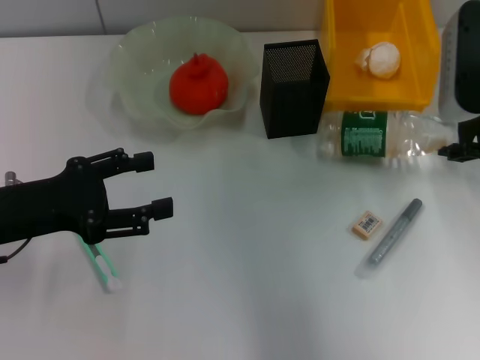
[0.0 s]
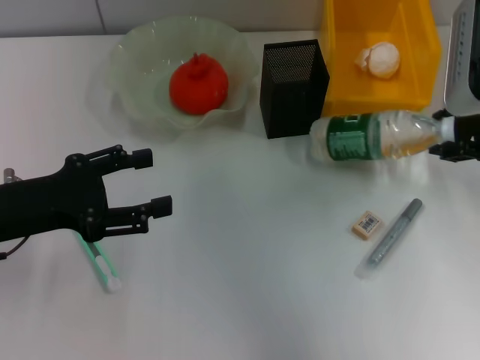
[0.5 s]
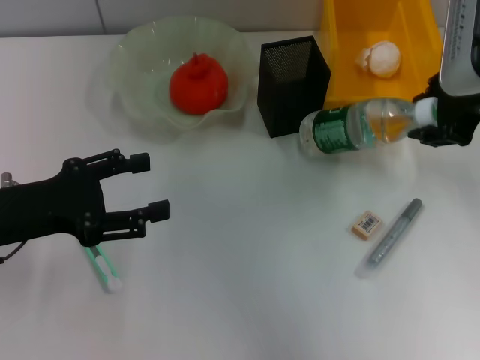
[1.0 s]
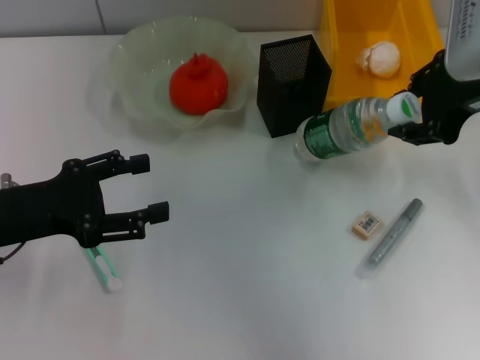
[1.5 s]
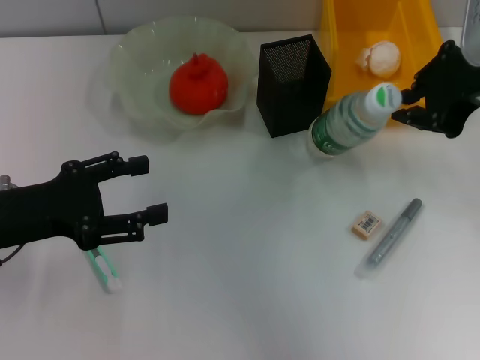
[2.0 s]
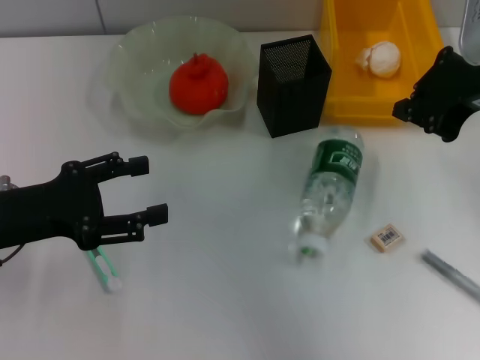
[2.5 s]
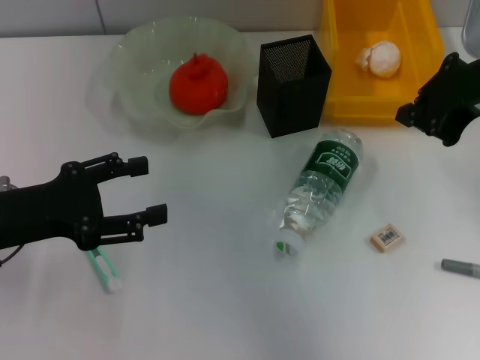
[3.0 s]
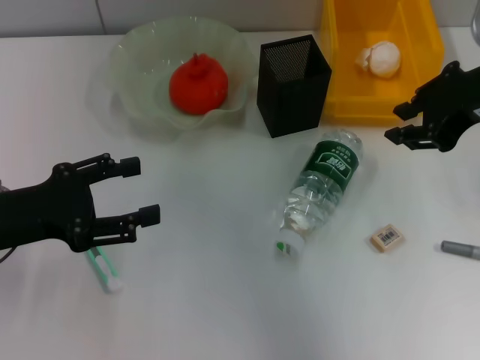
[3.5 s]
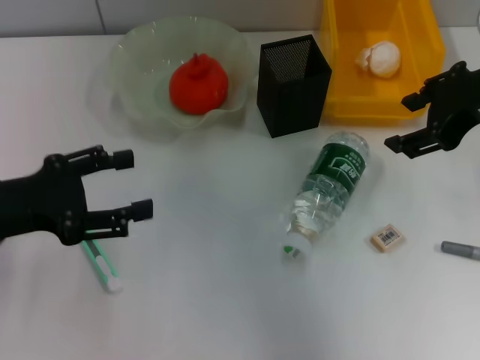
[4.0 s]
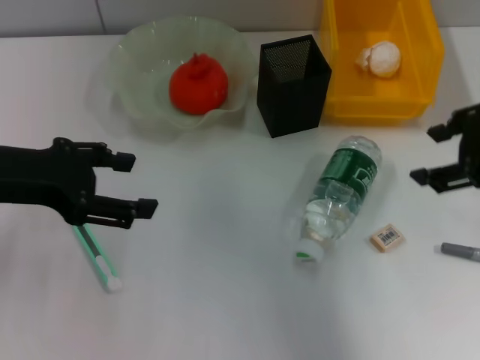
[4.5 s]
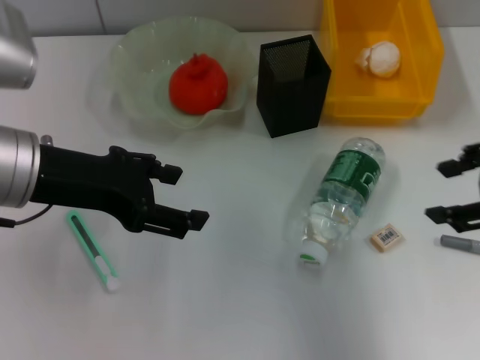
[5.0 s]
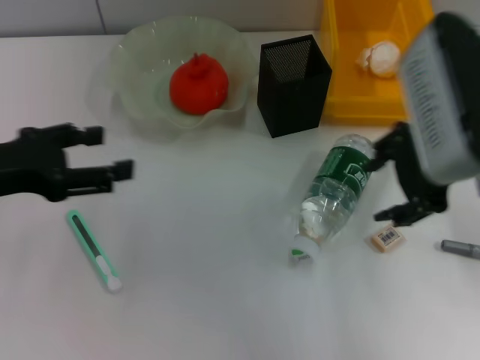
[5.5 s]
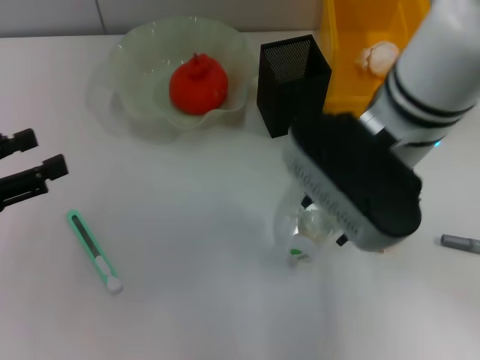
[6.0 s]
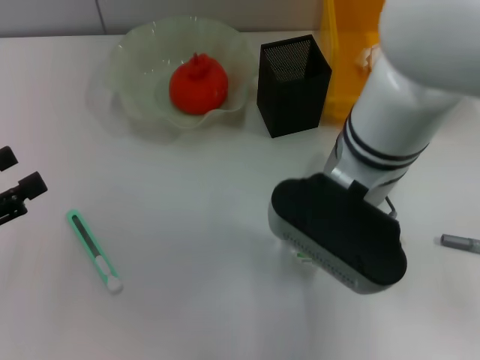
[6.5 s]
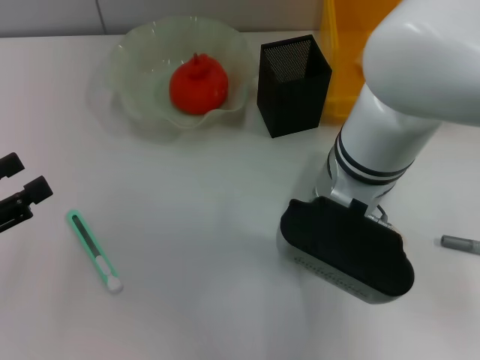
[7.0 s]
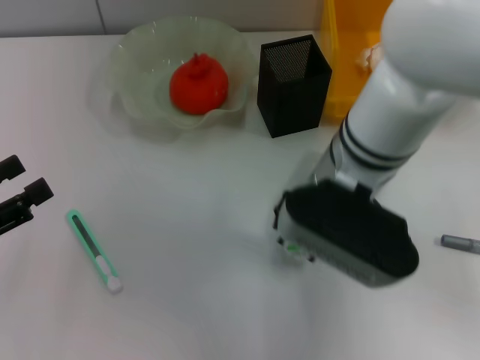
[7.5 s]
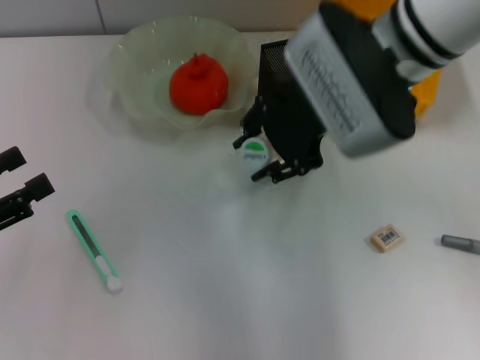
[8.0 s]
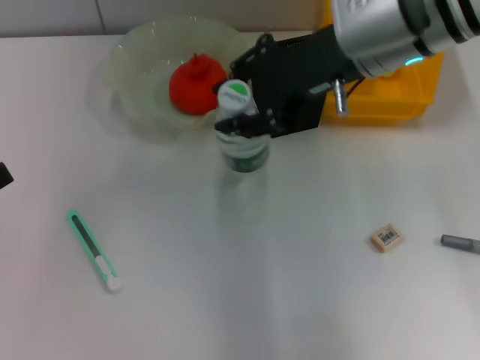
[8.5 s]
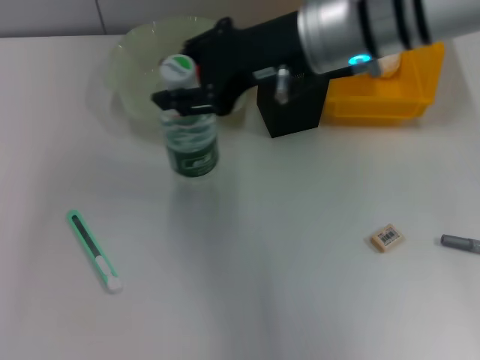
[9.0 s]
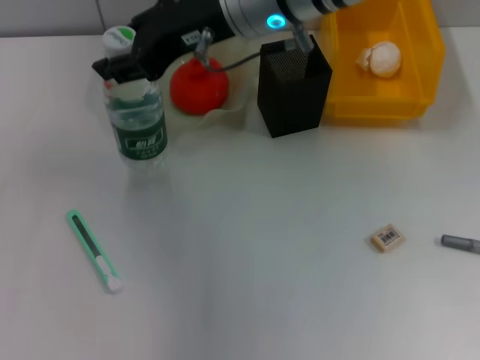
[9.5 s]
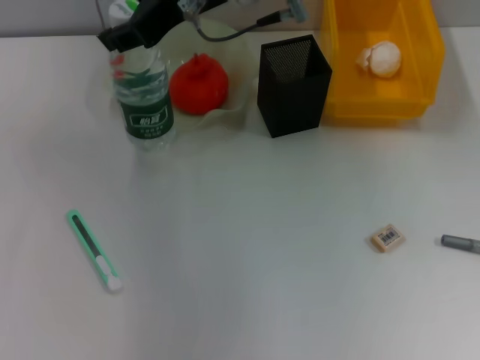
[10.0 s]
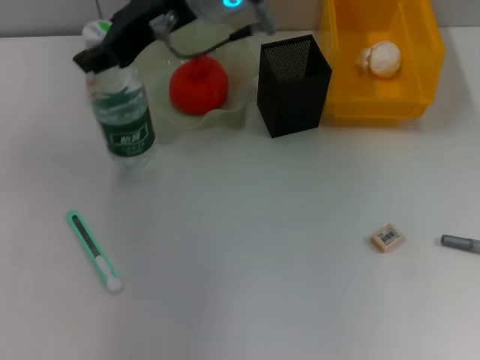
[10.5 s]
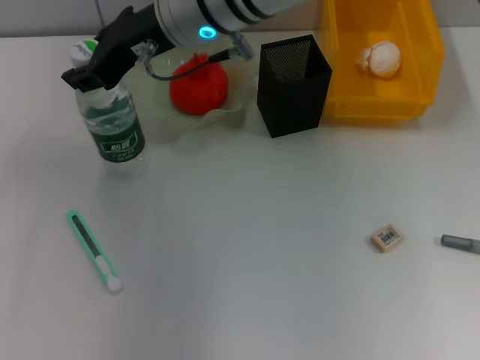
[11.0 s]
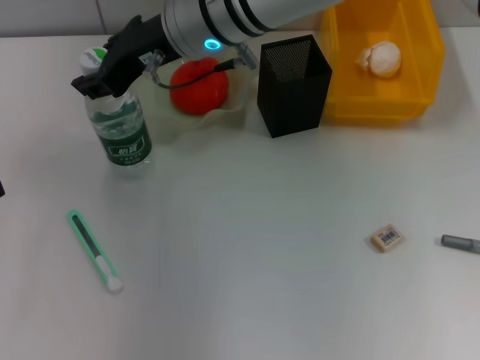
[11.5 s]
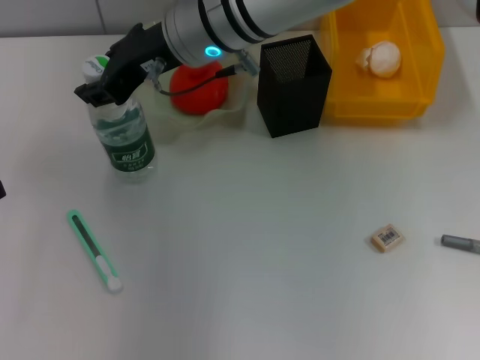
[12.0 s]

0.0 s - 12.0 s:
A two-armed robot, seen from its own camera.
Step, 0.0 s - 6.5 s: Grab the water bottle with the left hand.
0.0 s - 2.0 s: The right gripper goes approximately 5 cm upward.
2.0 s - 4.0 s: The right gripper opens its fingers.
4.0 s - 6.0 s: The right gripper moves to the left, some 15 cm. Meanwhile the left gripper heads to the left, covering some 5 cm.
6.0 s - 8.0 s: The right gripper ends up roughly 5 cm from where it was.
8.0 s - 10.0 s: The right gripper moves to the left and forward, some 10 cm; the left gripper is displaced to the left by some 5 cm.
10.0 s - 12.0 s: The right gripper shifts by roughly 5 cm.

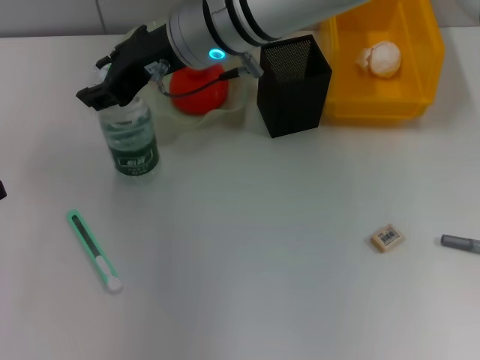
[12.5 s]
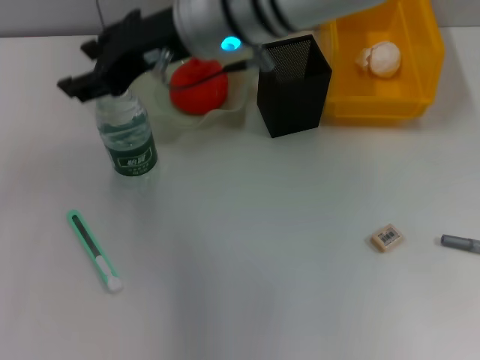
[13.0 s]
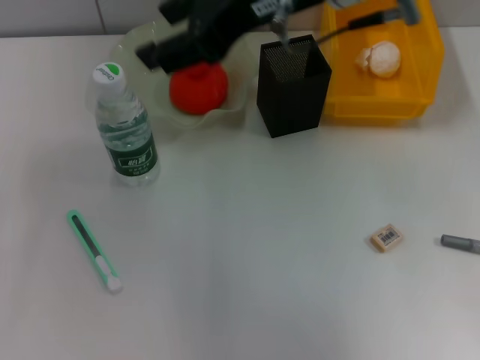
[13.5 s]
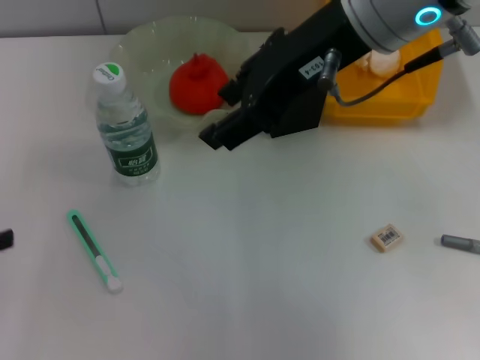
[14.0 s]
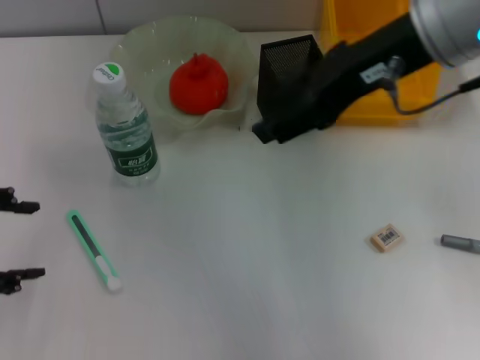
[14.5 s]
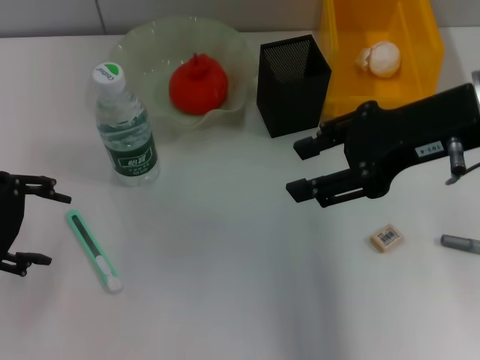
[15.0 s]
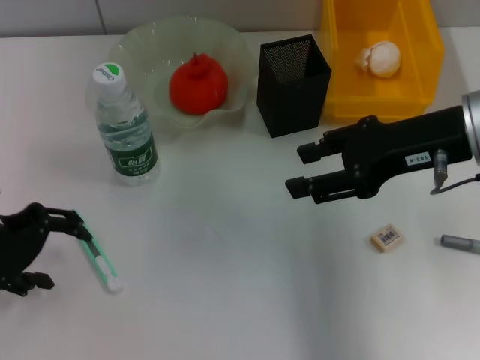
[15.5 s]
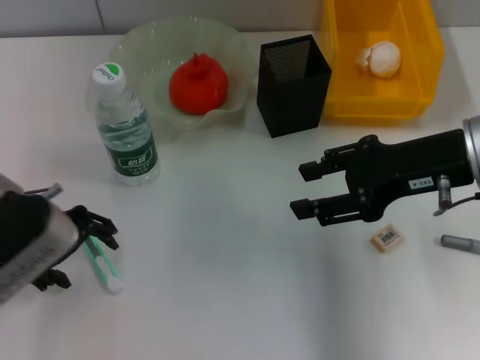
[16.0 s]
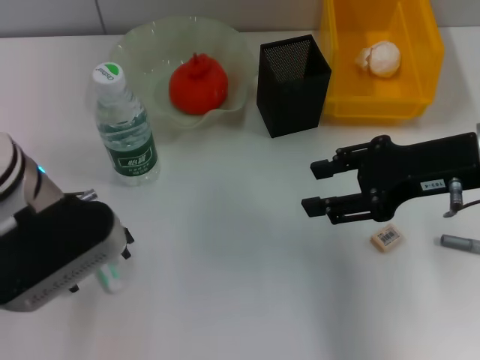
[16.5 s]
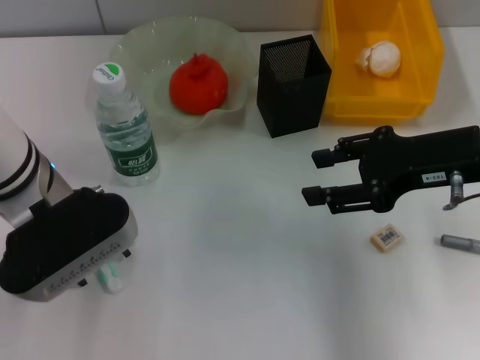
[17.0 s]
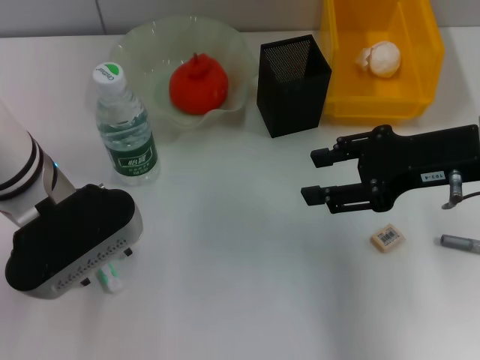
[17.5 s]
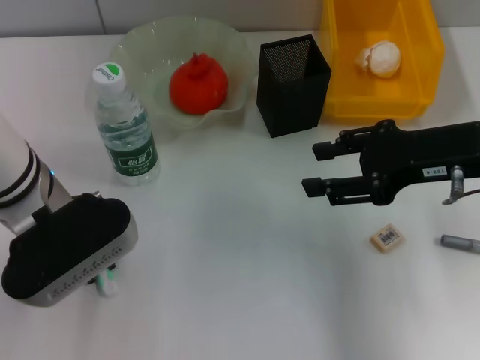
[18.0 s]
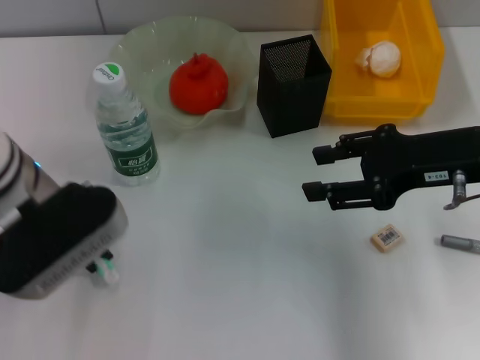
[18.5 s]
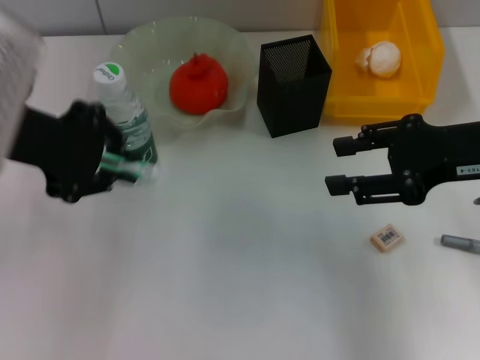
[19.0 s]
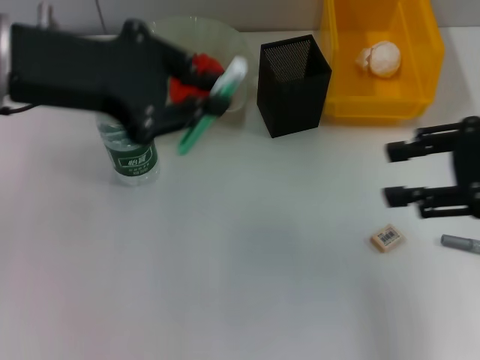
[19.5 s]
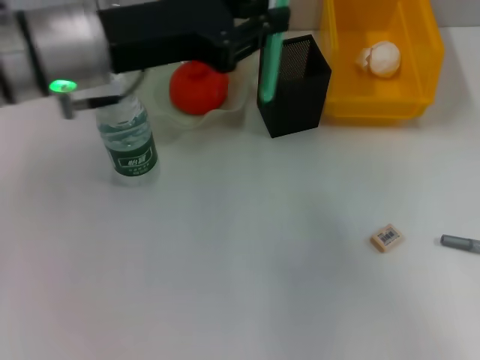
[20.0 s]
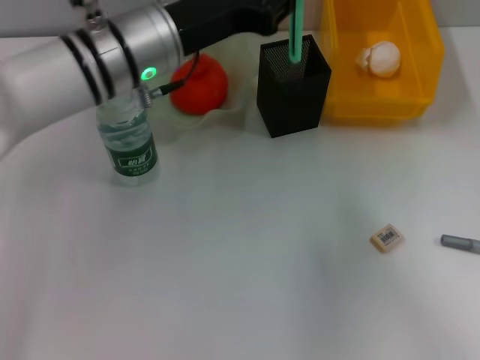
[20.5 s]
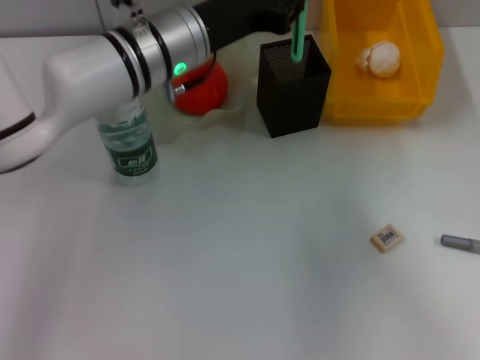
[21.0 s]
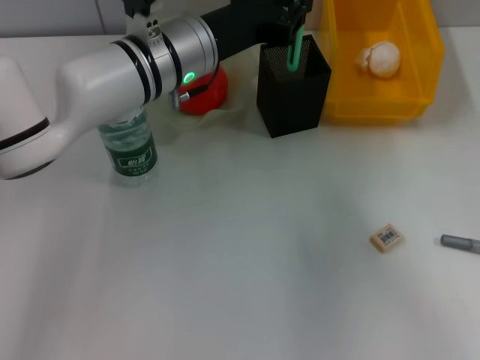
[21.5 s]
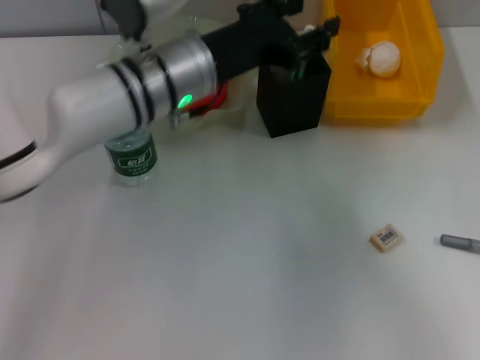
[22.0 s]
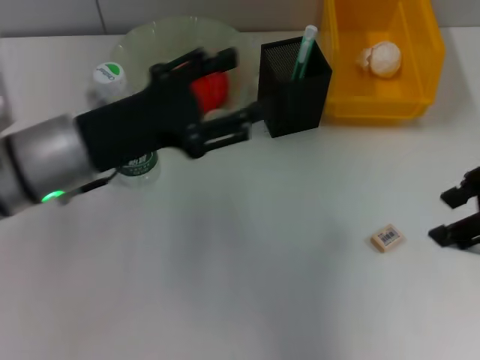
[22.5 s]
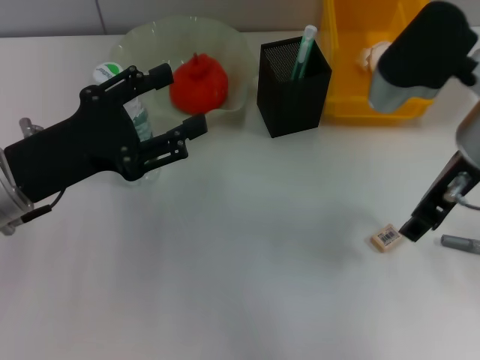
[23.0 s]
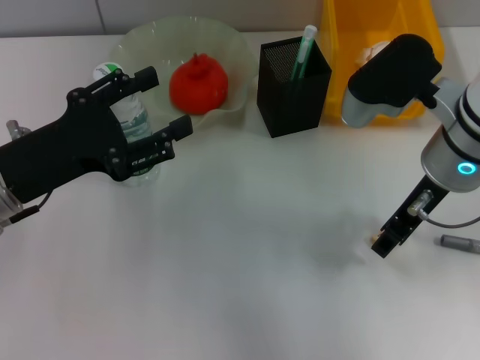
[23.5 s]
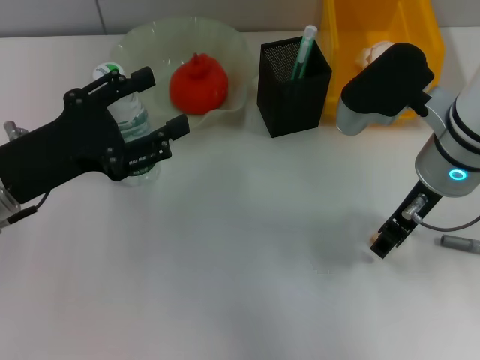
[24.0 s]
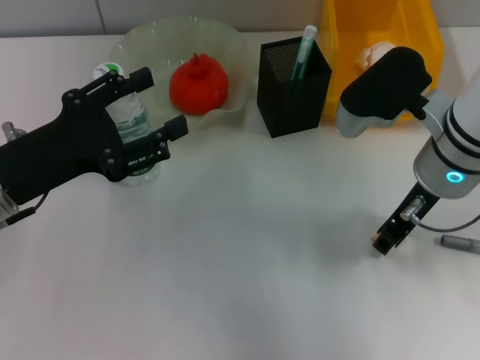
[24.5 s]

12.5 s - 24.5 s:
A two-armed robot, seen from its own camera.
Step, 14.0 s - 18.0 s: Grab the blue utility knife with the left hand.
Step, 18.5 s - 22.0 s: Place the blue utility knife into the pen holder with the left hand.
12.5 s - 14.5 s: The left gripper is displaced upward by approximately 5 cm, while the right gripper moves to the right, upward and backward, some 20 cm.
14.5 s - 16.5 s: The right gripper shifts about 15 cm downward and to the right; the left gripper goes approximately 15 cm to the right and forward.
16.5 s - 18.5 s: The left gripper closes.
18.5 s - 20.5 s: The left gripper travels forward and to the right by some 10 cm, and moves about 10 cm upward and comes back. The right gripper goes some 20 cm to the right, backward and upward.
20.5 s - 22.5 s: The left gripper moves backward and to the left, approximately 10 cm, and opens its fingers. The right gripper shifts about 15 cm to the left and forward.
22.5 s - 24.5 s: The left gripper shifts roughly 5 cm to the left, while the right gripper shifts about 15 cm to the left and downward.

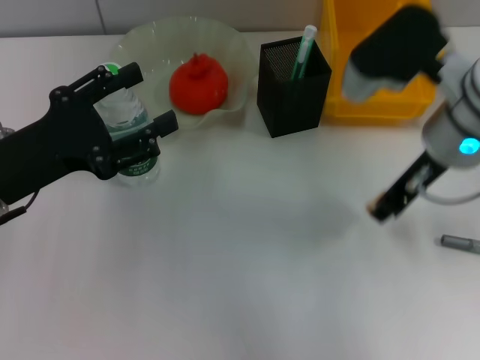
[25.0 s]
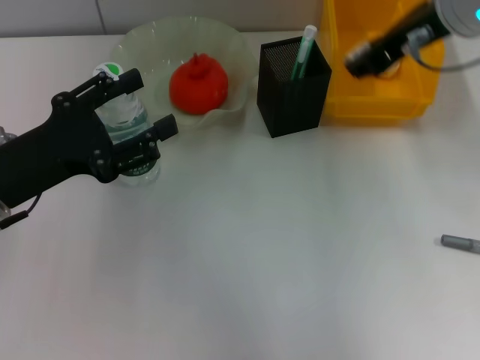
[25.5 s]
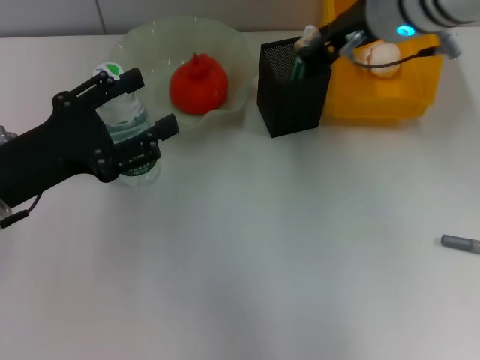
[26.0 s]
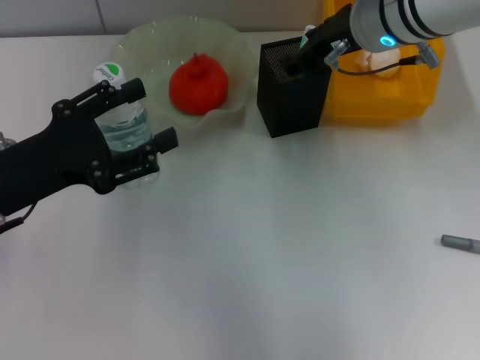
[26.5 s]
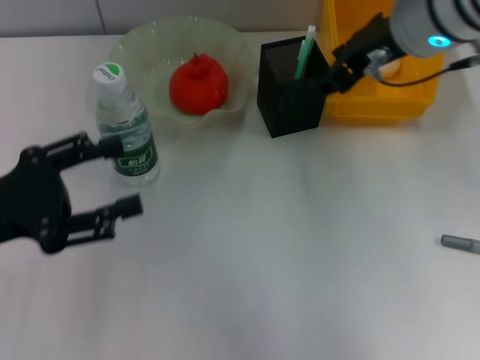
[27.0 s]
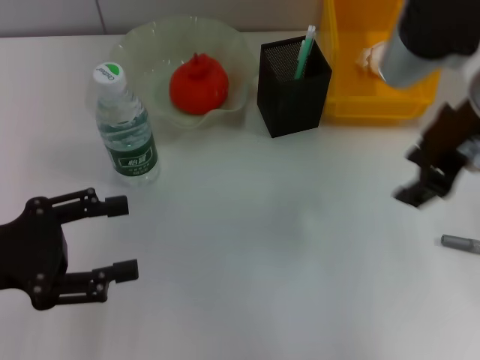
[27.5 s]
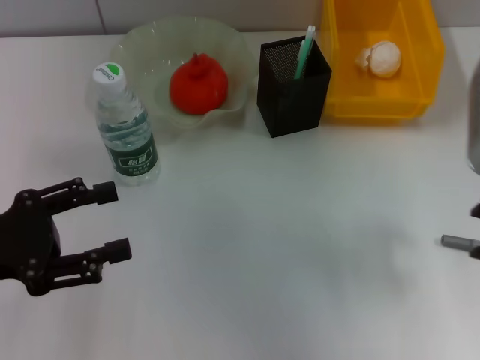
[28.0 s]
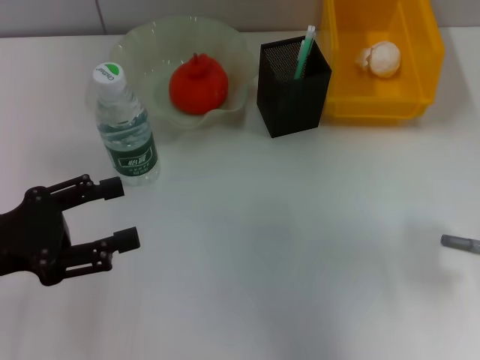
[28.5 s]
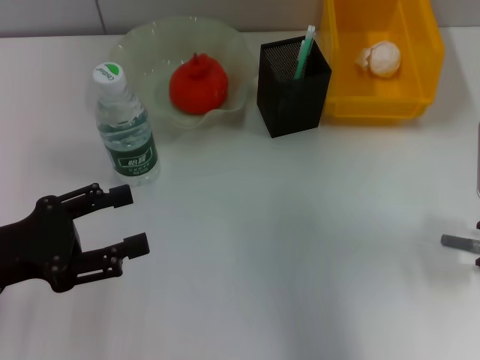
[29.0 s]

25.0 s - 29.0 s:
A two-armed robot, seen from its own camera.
Step, 25.0 s - 26.5 s: Put the eraser into the pen holder with the right hand.
25.0 s - 27.0 s: The right gripper heads upward, covering roughly 5 cm.
27.0 s - 29.0 s: The right gripper moves to the right, downward and backward, approximately 15 cm.
